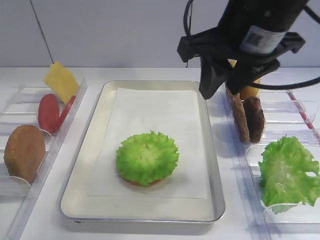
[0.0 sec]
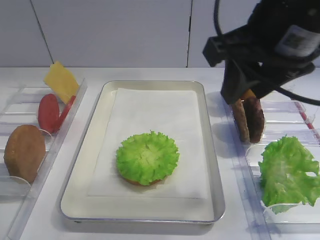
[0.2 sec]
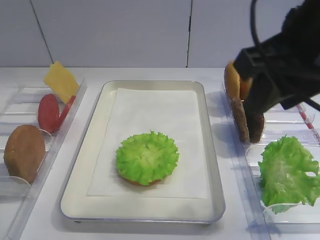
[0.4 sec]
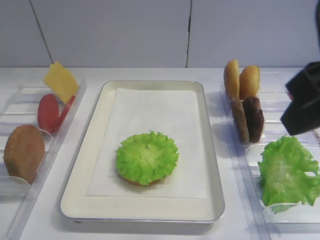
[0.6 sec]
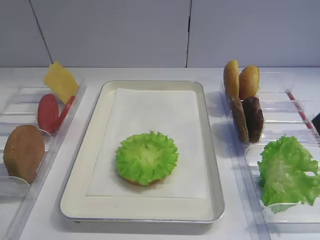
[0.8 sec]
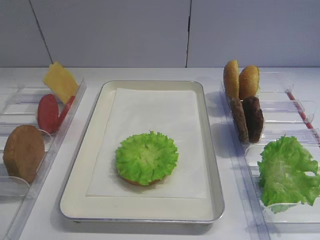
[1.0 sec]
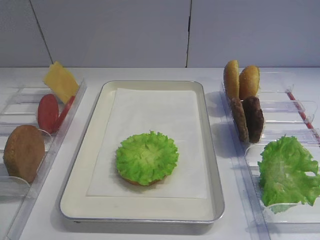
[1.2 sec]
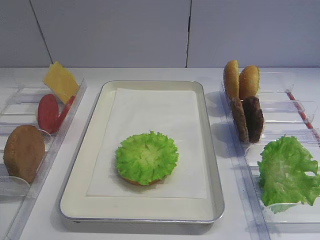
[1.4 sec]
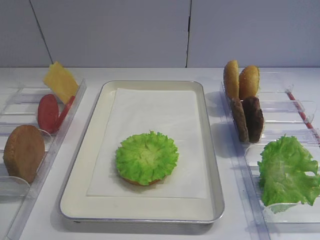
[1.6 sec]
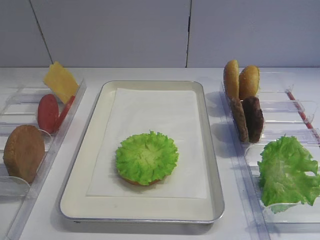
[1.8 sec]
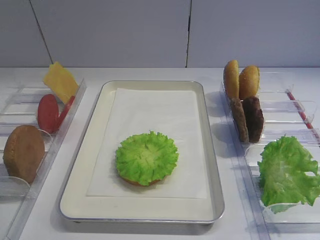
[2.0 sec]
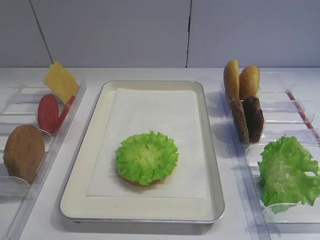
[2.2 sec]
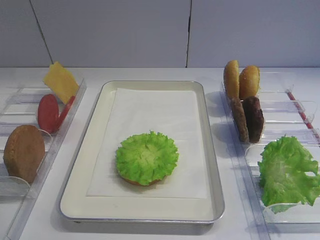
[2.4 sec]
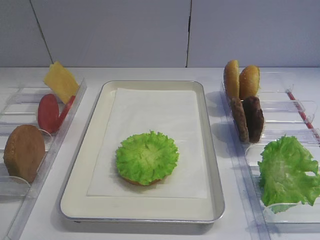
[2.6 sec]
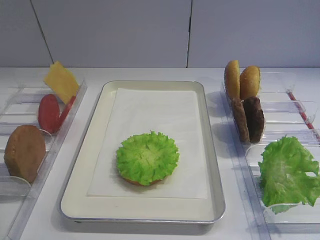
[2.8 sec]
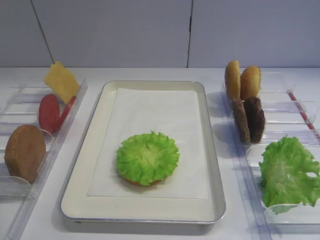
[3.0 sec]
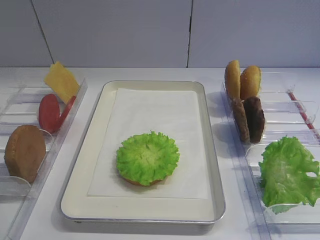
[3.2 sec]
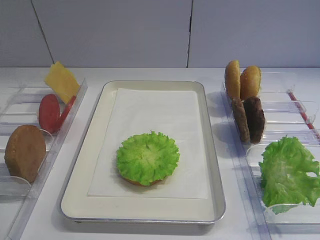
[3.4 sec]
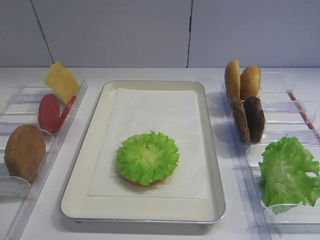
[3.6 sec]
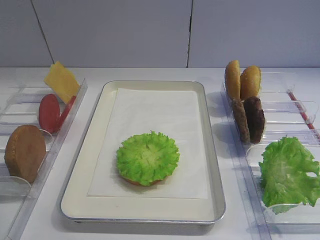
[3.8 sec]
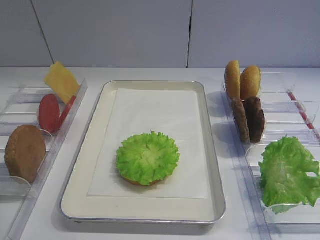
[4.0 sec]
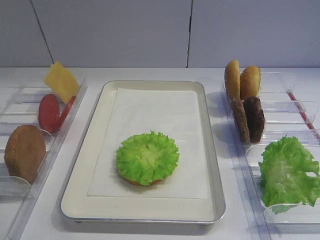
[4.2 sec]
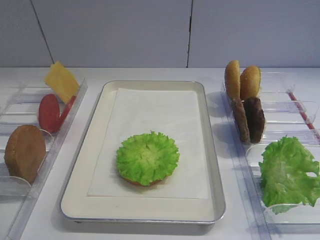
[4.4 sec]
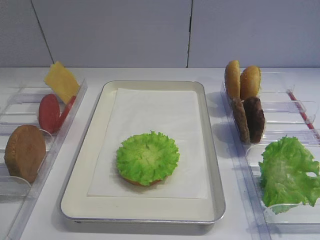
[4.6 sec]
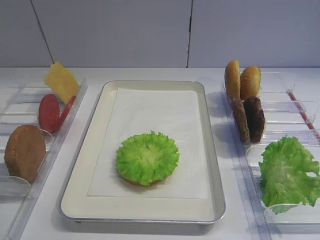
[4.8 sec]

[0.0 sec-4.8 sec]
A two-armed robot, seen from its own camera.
0.0 sec to 1.6 sec: The right gripper shifts about 30 cm backward and to the right.
1.6 sec to 3.2 sec: The right gripper heads downward, covering about 5 cm.
3.2 sec to 4.8 sec: The two grippers keep their place.

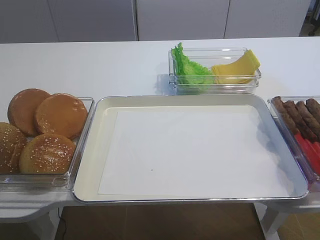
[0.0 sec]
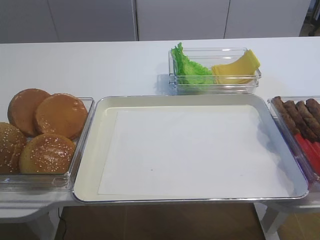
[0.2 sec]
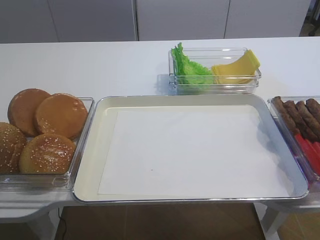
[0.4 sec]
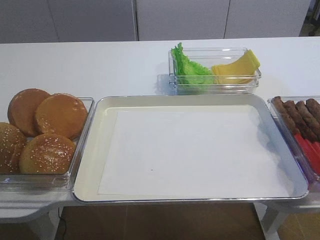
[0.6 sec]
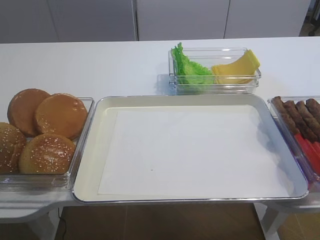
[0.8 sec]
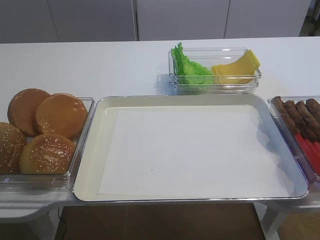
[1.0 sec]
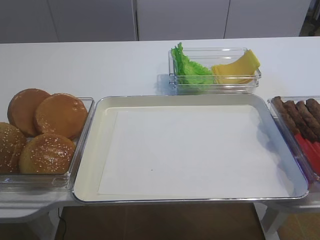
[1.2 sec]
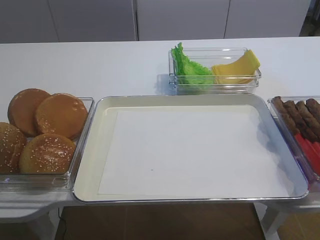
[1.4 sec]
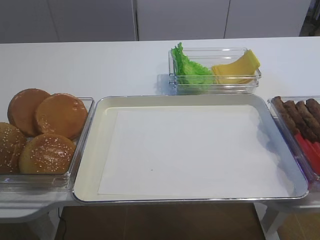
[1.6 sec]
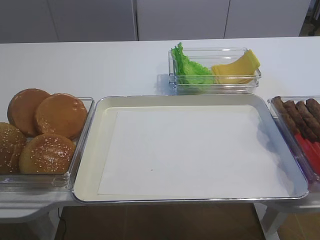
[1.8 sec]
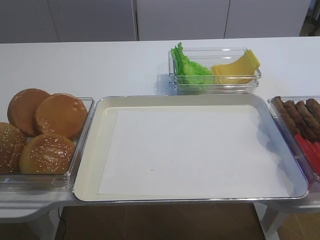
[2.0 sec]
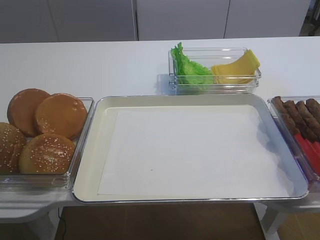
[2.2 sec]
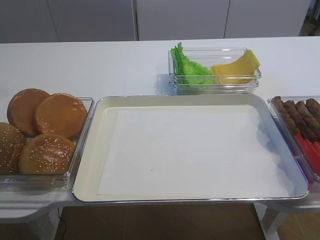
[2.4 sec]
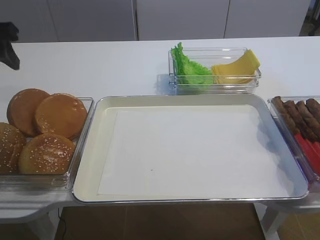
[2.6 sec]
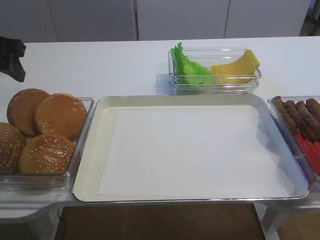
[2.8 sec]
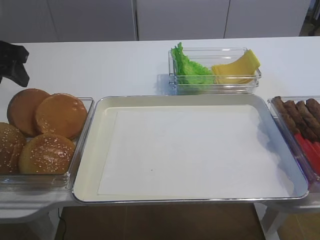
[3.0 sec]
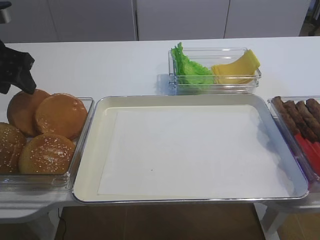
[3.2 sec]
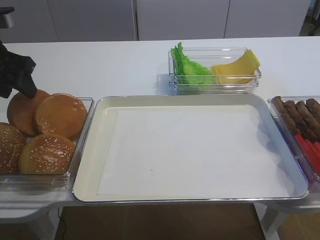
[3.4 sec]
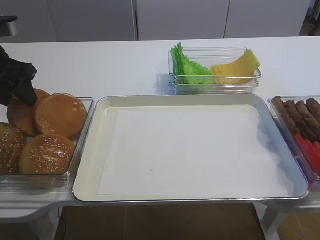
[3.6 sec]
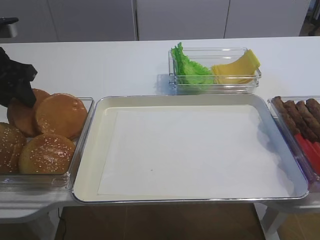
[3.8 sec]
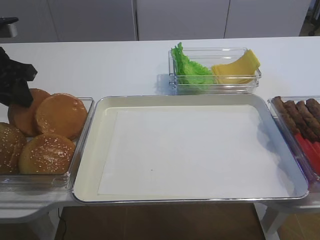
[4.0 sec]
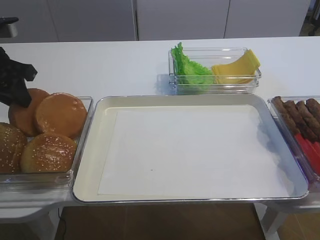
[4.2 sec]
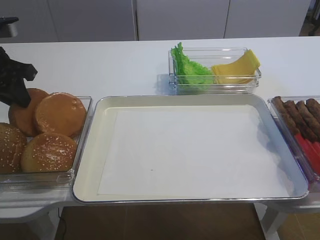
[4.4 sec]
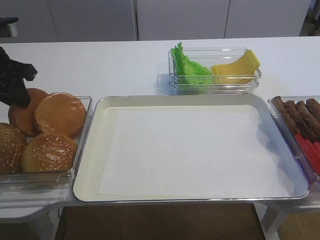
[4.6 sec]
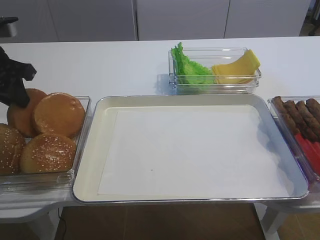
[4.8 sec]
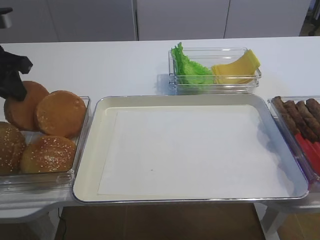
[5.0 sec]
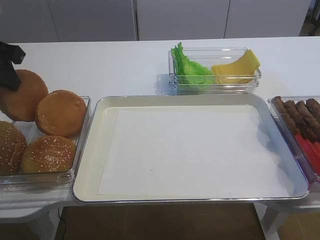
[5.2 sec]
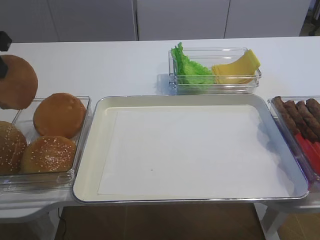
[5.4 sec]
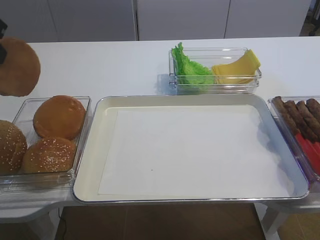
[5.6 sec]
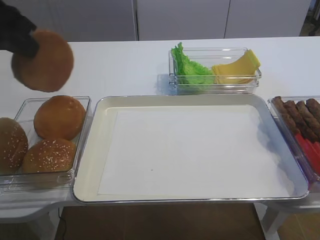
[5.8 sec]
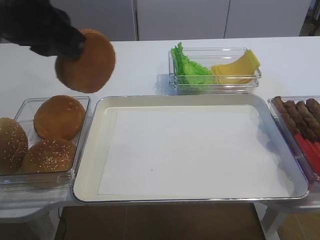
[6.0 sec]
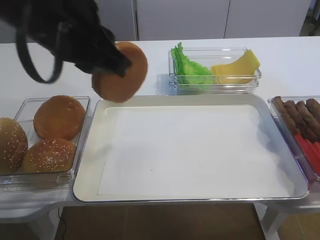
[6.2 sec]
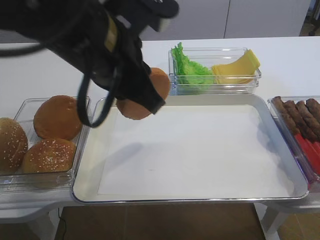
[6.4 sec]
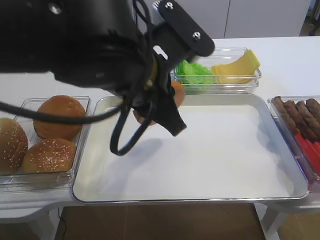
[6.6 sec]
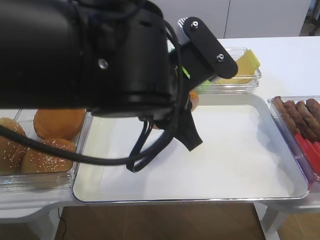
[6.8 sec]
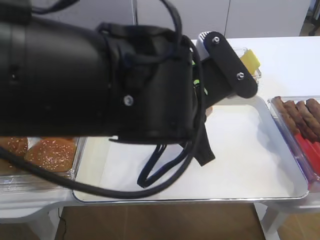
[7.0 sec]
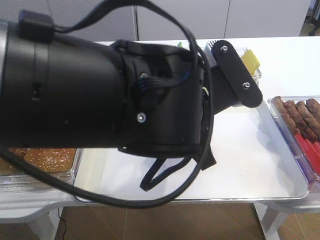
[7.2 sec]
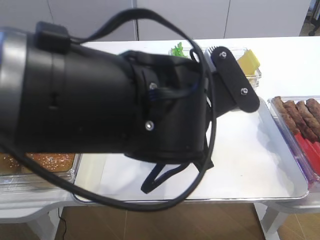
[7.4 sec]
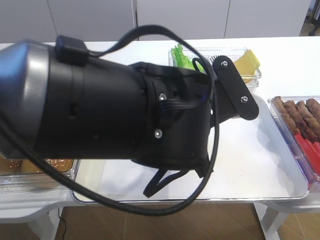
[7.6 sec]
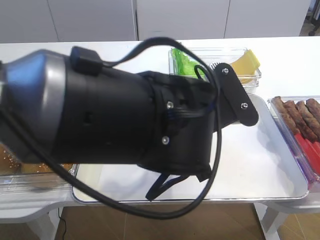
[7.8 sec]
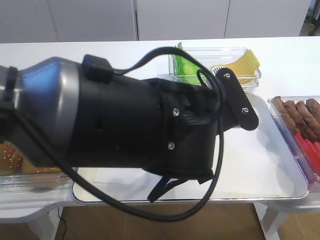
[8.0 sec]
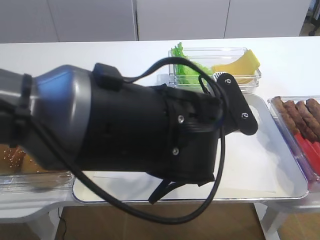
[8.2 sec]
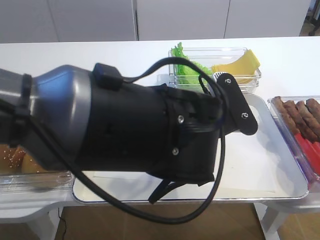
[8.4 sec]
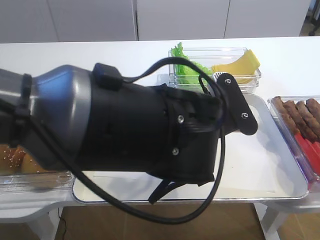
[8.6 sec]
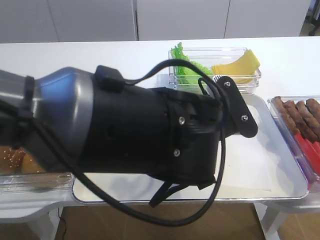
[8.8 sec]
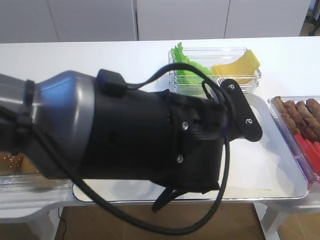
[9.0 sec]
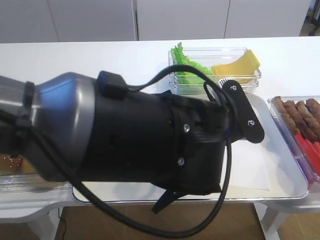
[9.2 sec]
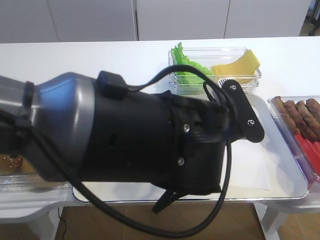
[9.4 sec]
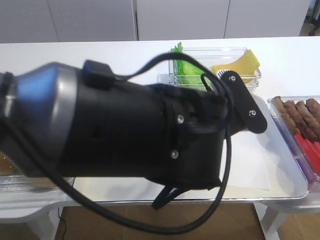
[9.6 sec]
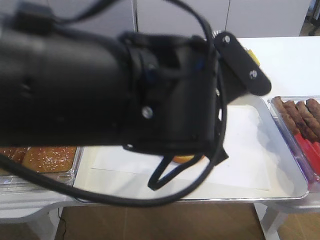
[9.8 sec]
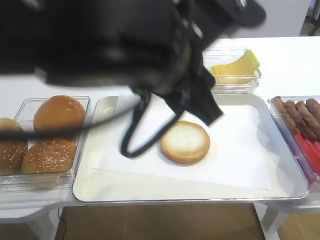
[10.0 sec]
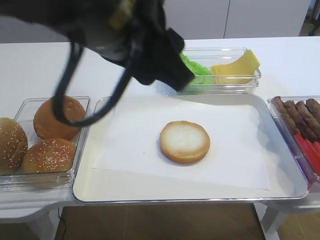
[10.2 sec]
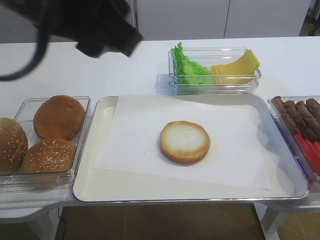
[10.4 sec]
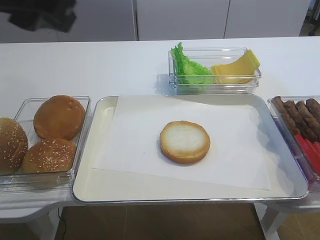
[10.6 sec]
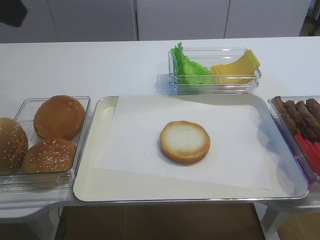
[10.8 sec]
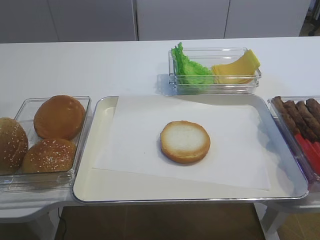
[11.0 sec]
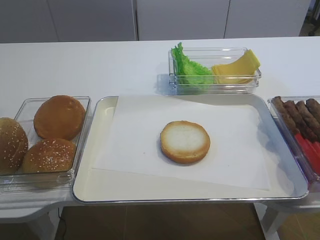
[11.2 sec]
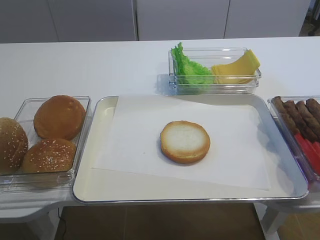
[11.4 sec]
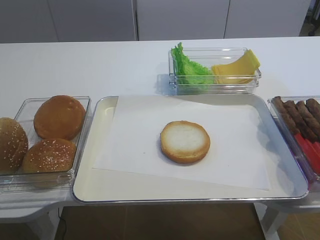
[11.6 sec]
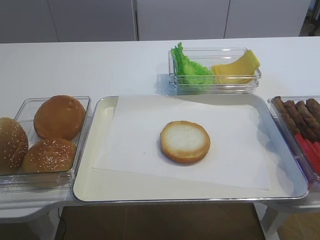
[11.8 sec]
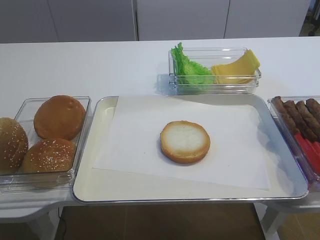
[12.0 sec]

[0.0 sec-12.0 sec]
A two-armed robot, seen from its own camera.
Step, 0.0 sec to 5.0 sec: Pick up the bread slice with the left gripper.
Step, 5.4 sec to 9.4 sec: Place the bread slice on the tray with the left gripper.
1.6 sec to 3.0 sec: The left gripper shifts approximately 30 cm forward.
3.0 sec to 4.4 sec: The left gripper closes.
4.4 sec to 6.0 sec: The left gripper travels to the right, upward and backward by some 20 cm.
6.0 sec to 7.6 sec: The left gripper is displaced to the right and downward by some 20 cm.
7.6 sec to 9.0 sec: The left gripper opens its fingers.
9.0 sec to 10.4 sec: The left gripper is displaced upward and to the left by some 25 cm.
10.4 sec to 12.0 sec: The left gripper goes roughly 15 cm to the left and backward.

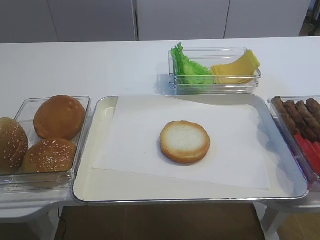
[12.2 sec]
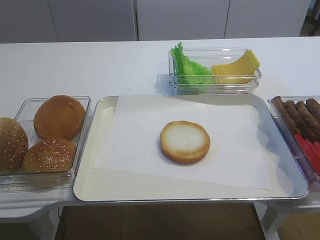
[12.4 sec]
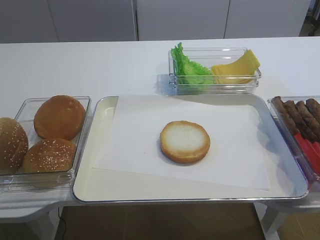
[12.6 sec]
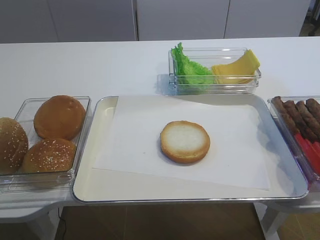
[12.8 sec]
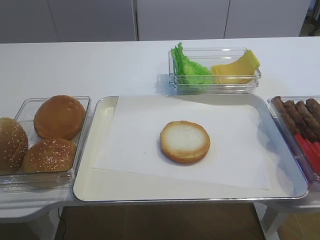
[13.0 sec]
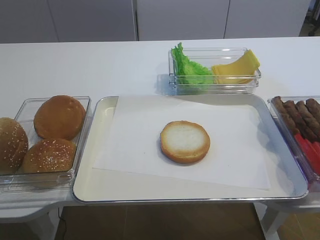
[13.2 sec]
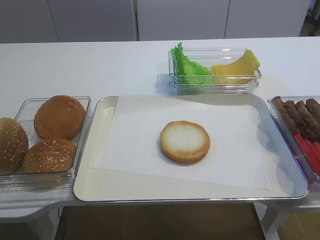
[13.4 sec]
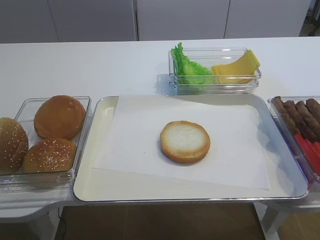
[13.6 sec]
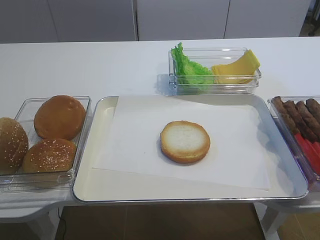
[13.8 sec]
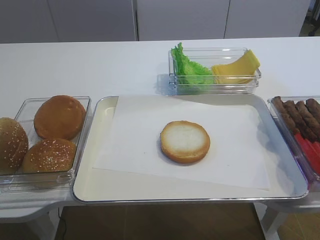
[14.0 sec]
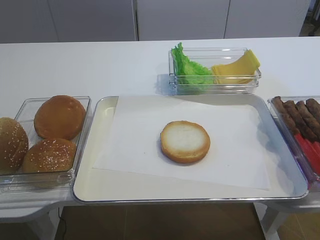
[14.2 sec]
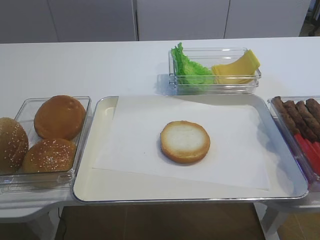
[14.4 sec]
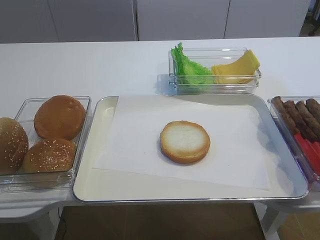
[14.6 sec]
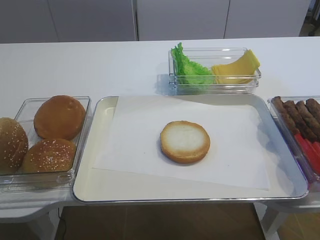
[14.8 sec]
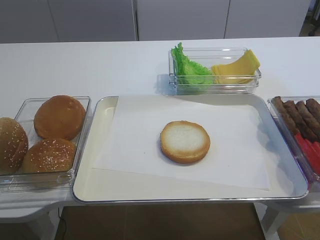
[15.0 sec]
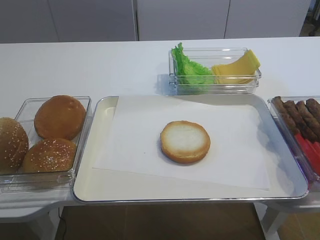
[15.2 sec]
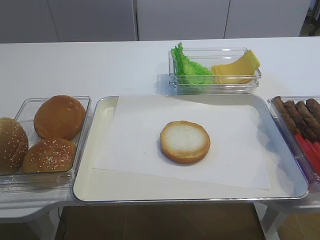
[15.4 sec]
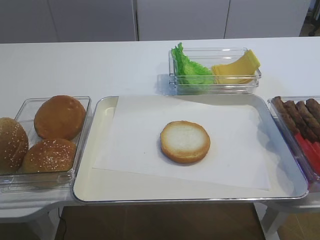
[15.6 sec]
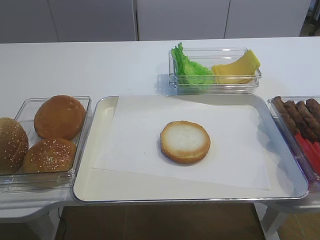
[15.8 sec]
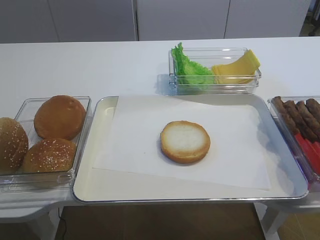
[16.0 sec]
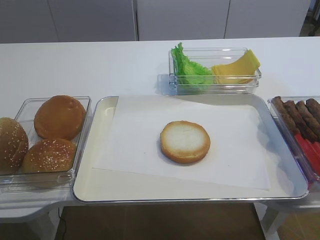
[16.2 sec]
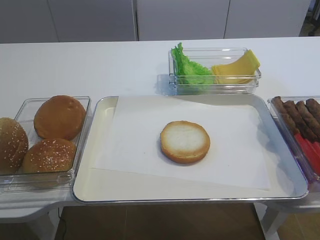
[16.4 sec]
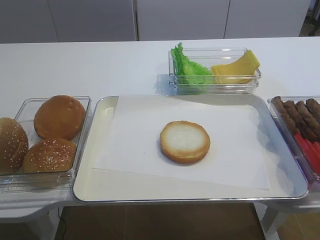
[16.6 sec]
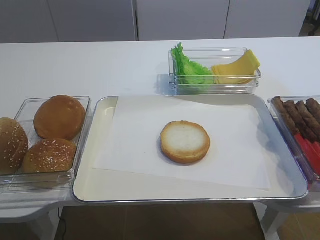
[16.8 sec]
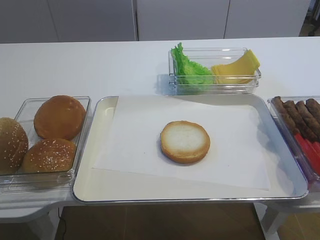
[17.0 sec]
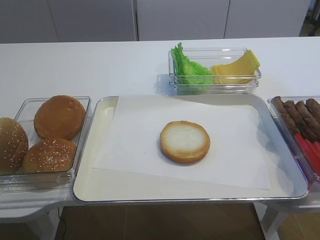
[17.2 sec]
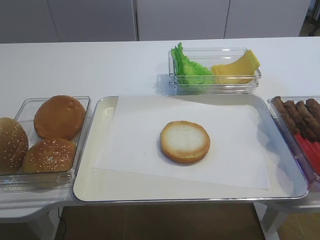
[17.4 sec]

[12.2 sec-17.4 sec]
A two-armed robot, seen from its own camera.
14.0 sec to 15.6 sec: Both grippers stay about where they are.
